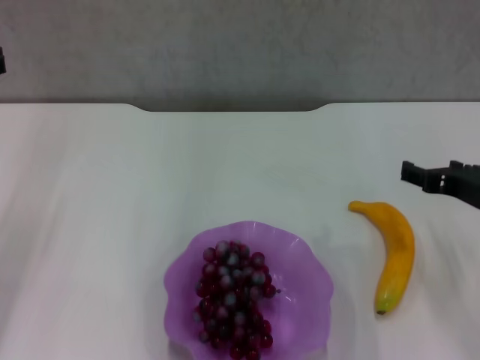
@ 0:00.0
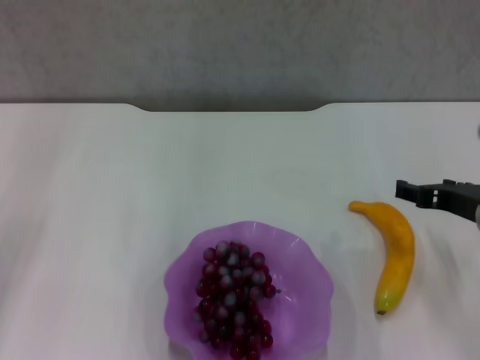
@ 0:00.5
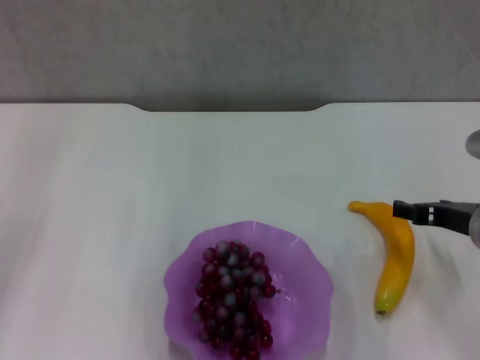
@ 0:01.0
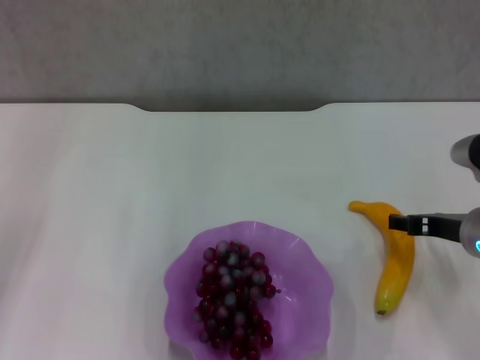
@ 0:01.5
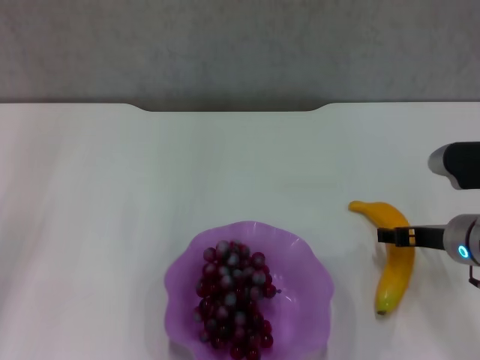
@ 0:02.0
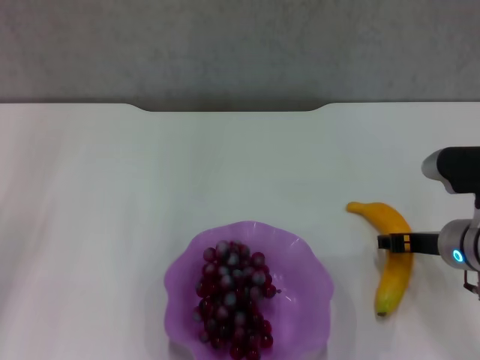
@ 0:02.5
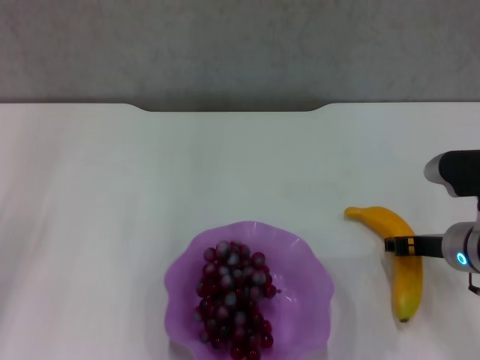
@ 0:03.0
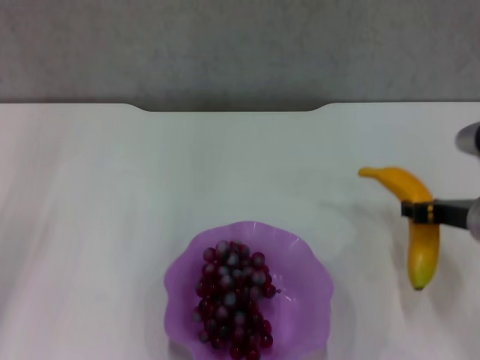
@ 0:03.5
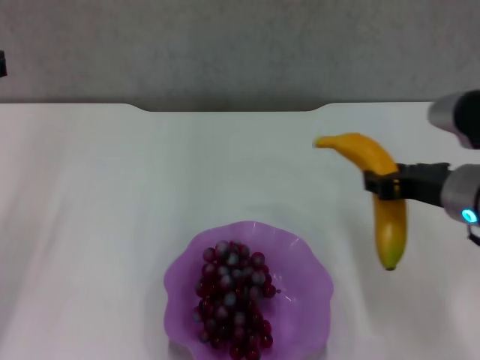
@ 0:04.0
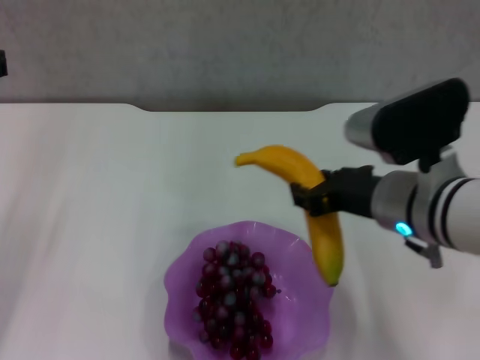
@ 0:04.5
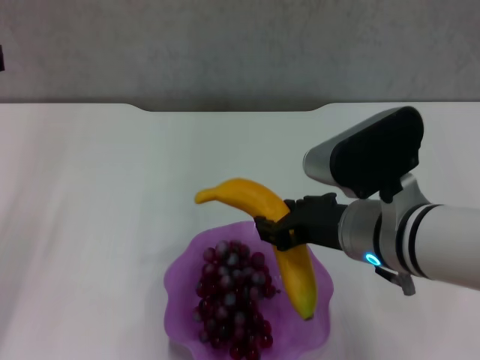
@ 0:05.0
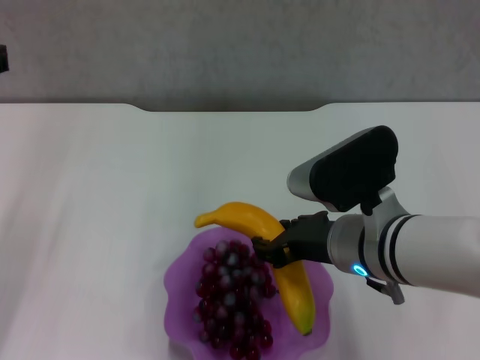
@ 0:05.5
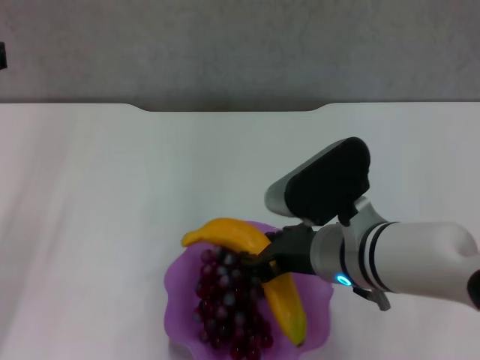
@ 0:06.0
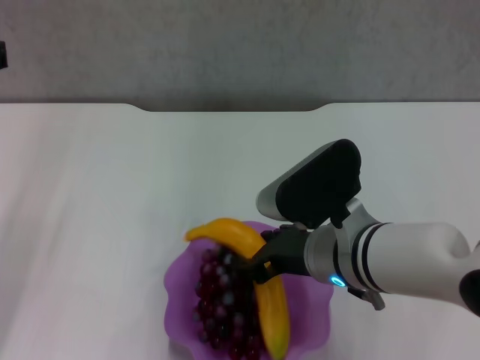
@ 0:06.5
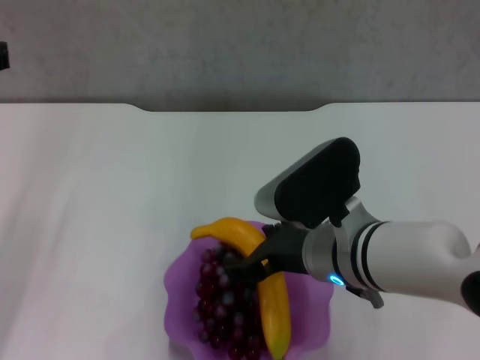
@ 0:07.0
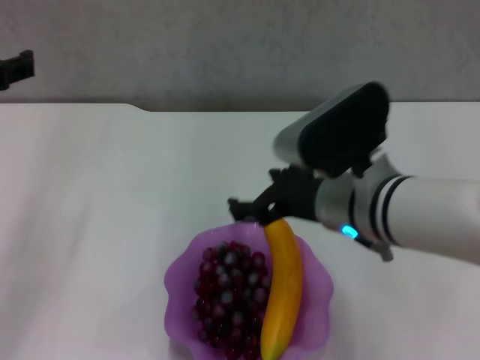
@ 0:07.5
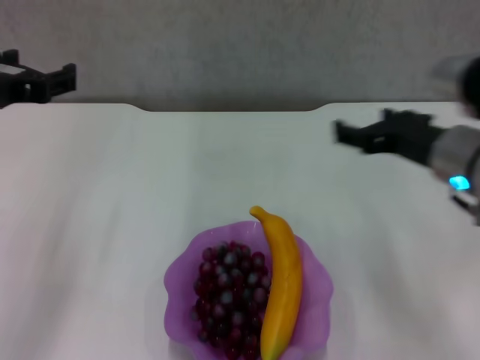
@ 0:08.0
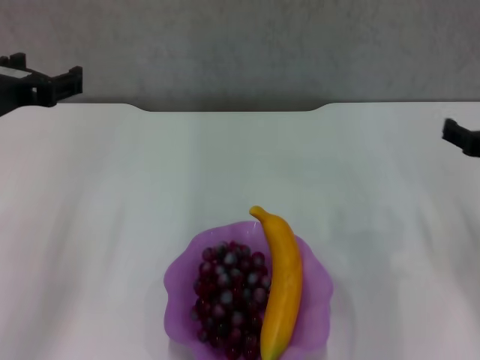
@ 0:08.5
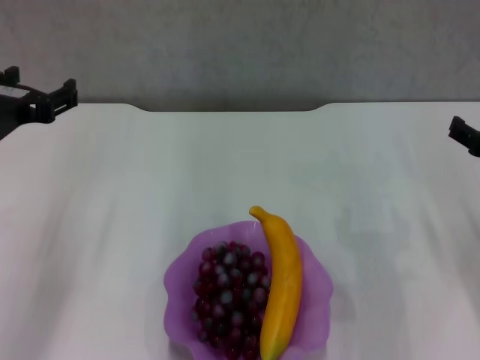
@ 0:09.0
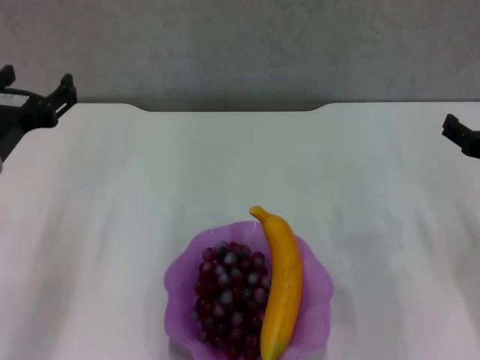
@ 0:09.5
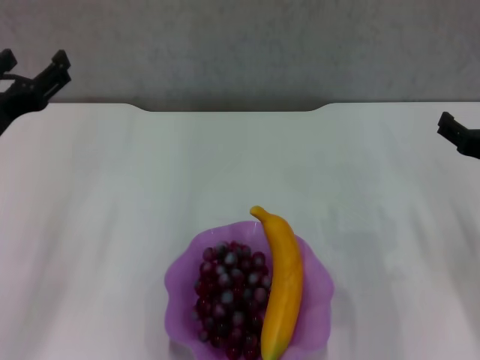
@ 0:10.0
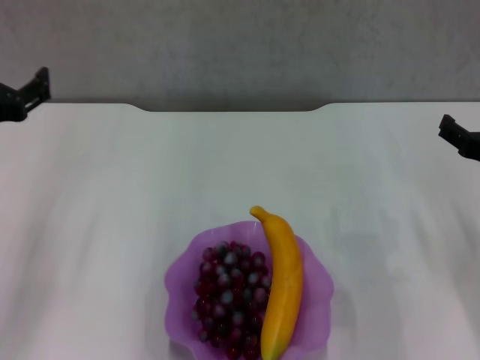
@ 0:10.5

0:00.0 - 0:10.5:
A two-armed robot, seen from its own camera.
Step, 0:00.0 - 0:02.5: Grasp the banana with right gripper.
Step, 0:03.5 - 0:07.0: Place the banana in the purple plate with right gripper.
0:00.0 - 0:02.0: The right gripper heads downward, covering some 5 cm.
0:02.0 - 0:04.0: The right gripper heads upward, covering some 10 cm, and closes up.
0:04.0 - 0:06.5: The right gripper moves to the left, about 10 cm, and opens up.
0:06.5 - 0:08.5: The right gripper shifts approximately 20 cm to the right, and opens up; the left gripper changes place by some 5 cm.
0:08.5 - 0:10.5: The left gripper shifts by about 5 cm.
